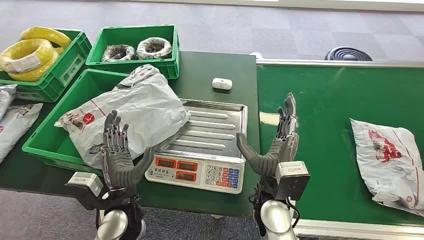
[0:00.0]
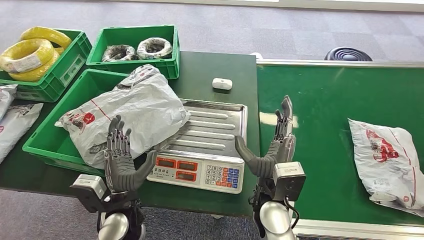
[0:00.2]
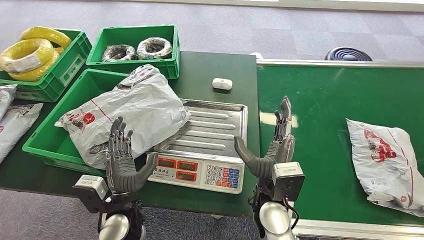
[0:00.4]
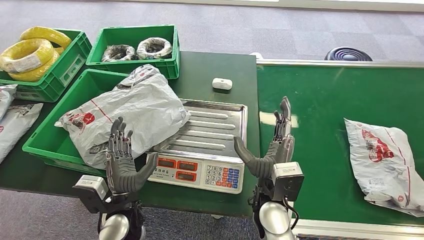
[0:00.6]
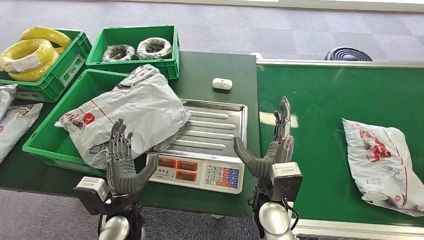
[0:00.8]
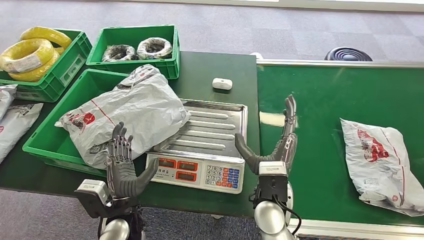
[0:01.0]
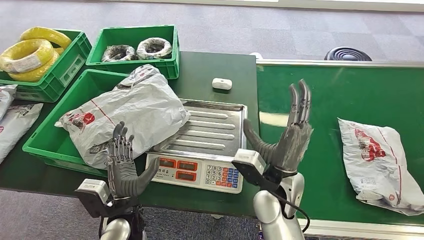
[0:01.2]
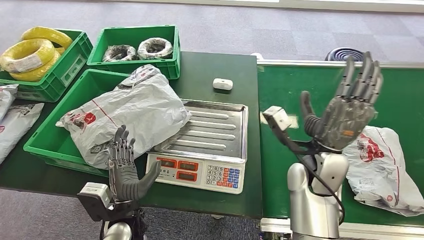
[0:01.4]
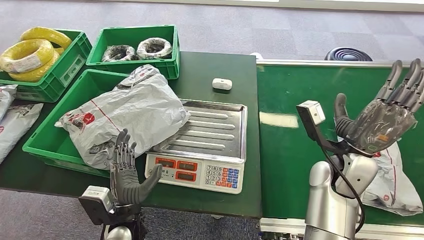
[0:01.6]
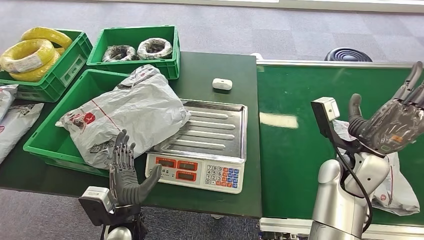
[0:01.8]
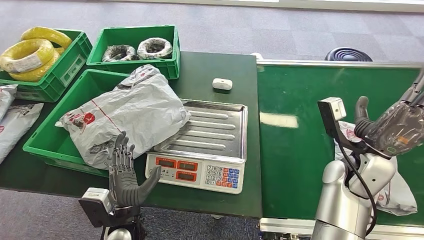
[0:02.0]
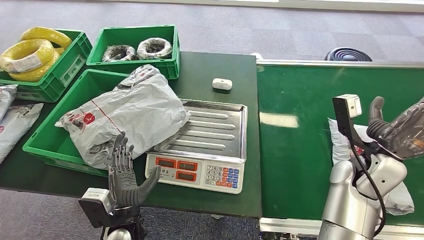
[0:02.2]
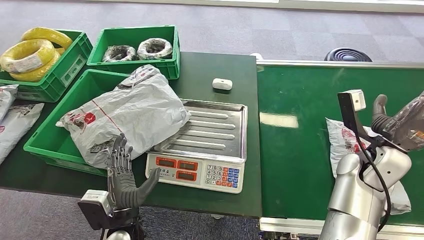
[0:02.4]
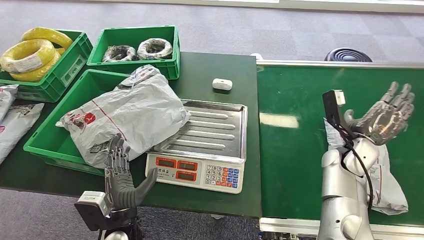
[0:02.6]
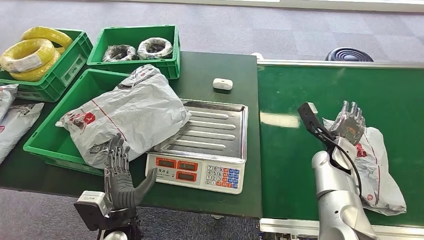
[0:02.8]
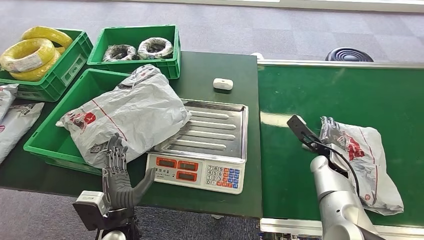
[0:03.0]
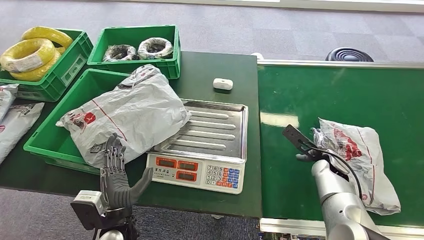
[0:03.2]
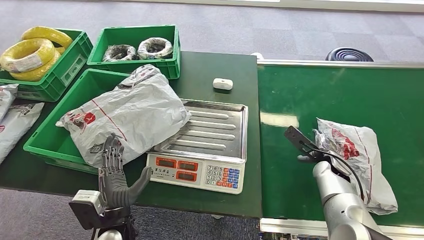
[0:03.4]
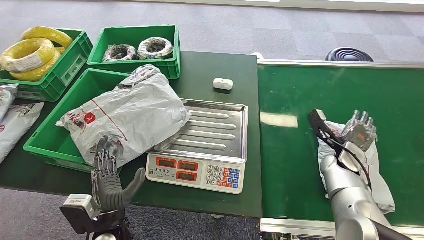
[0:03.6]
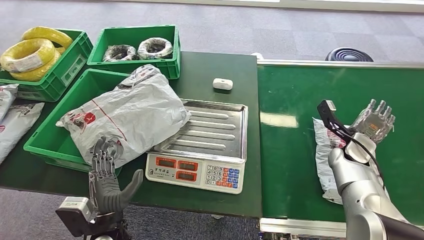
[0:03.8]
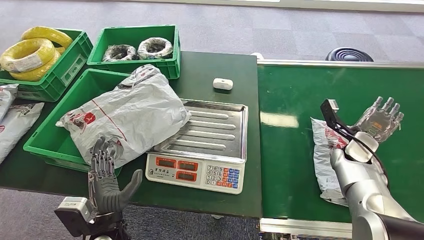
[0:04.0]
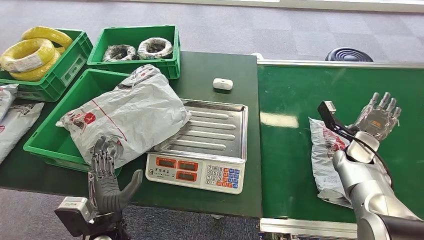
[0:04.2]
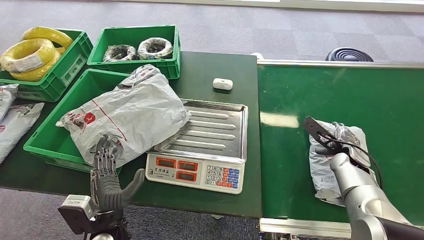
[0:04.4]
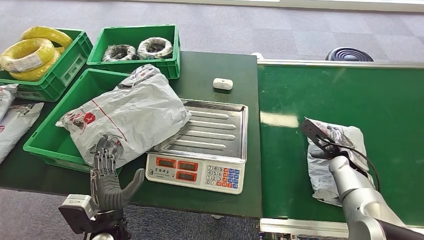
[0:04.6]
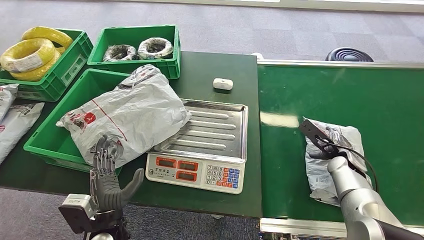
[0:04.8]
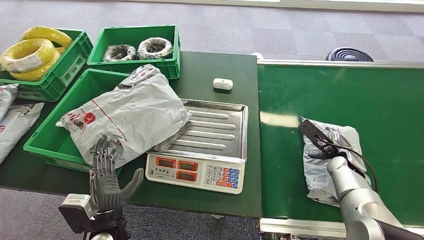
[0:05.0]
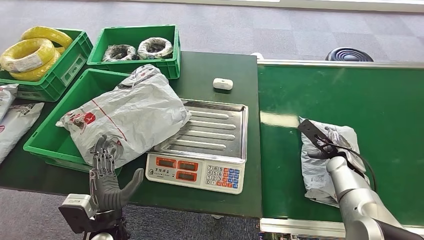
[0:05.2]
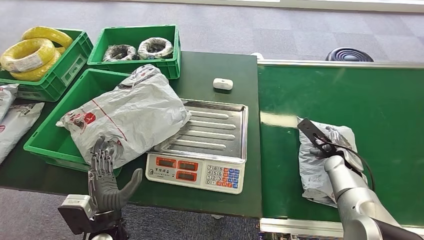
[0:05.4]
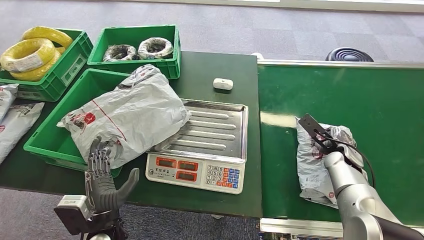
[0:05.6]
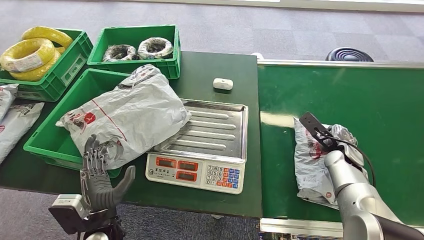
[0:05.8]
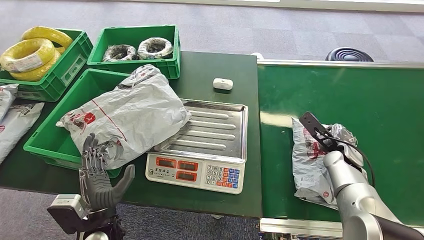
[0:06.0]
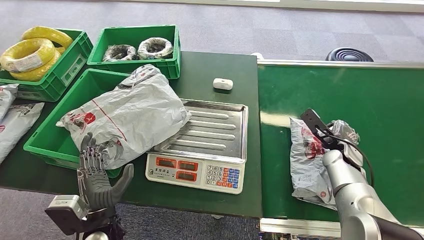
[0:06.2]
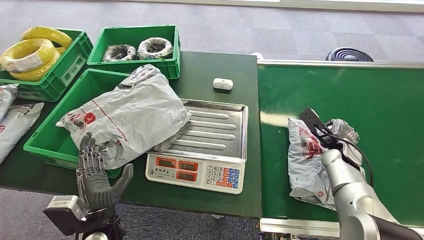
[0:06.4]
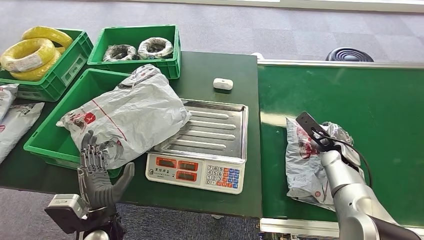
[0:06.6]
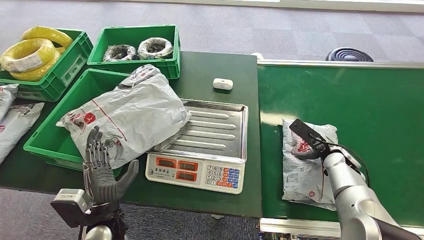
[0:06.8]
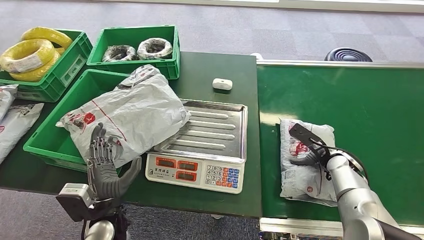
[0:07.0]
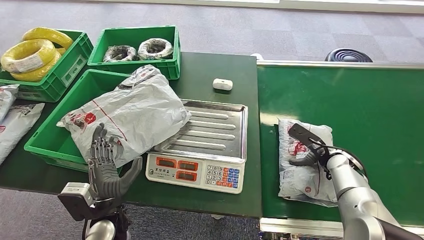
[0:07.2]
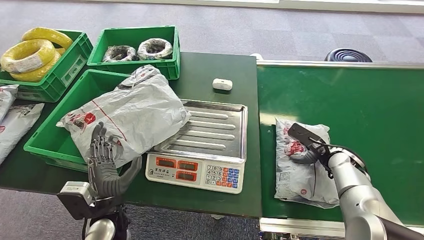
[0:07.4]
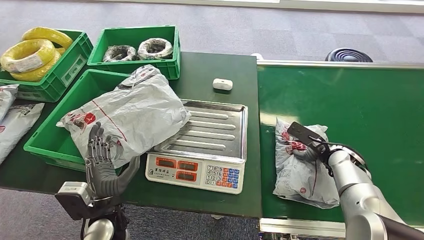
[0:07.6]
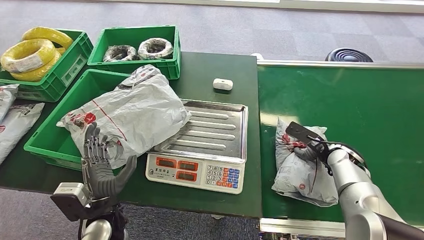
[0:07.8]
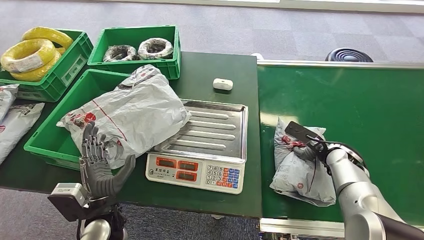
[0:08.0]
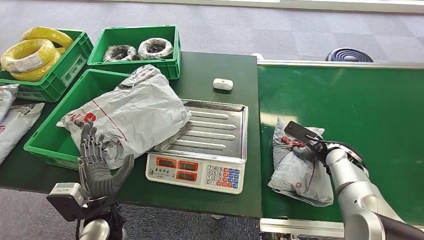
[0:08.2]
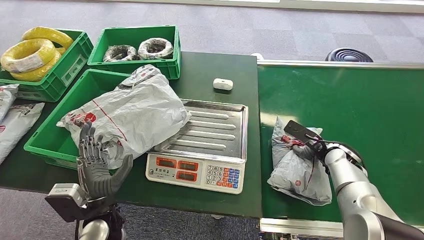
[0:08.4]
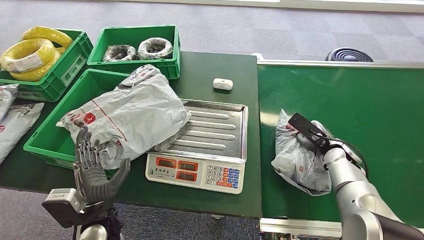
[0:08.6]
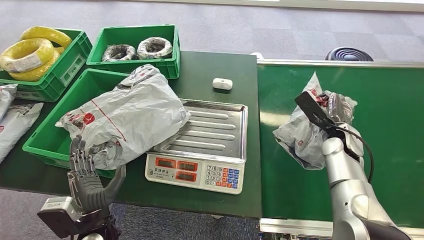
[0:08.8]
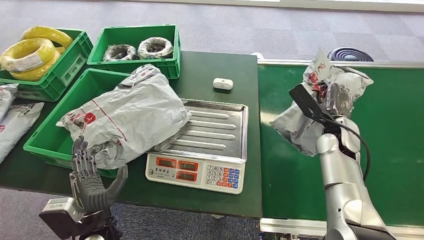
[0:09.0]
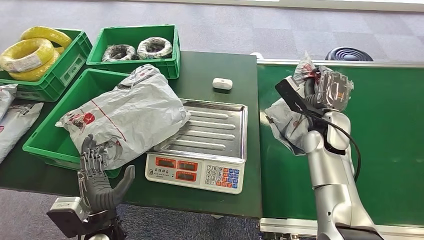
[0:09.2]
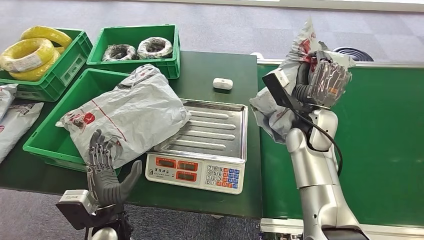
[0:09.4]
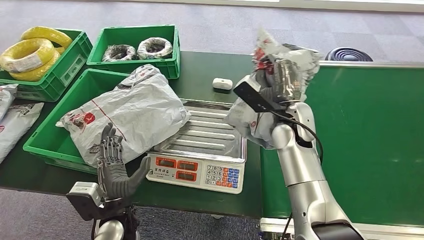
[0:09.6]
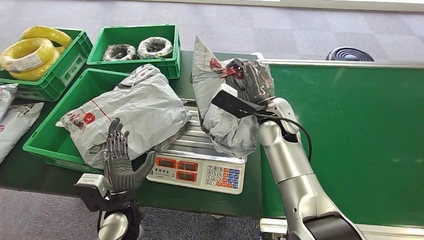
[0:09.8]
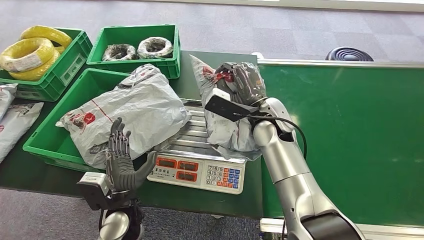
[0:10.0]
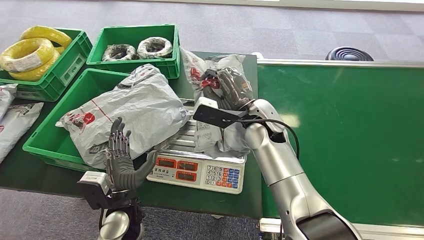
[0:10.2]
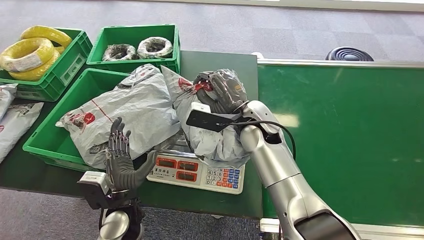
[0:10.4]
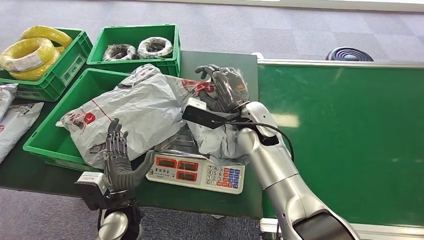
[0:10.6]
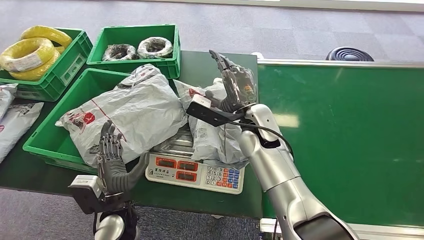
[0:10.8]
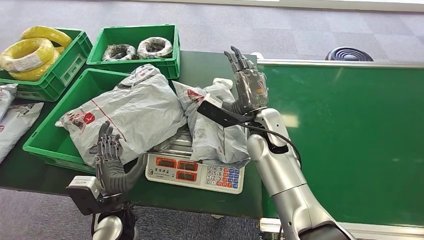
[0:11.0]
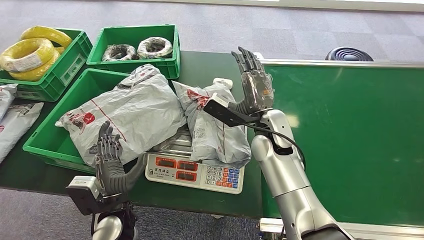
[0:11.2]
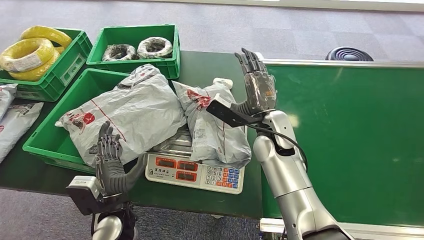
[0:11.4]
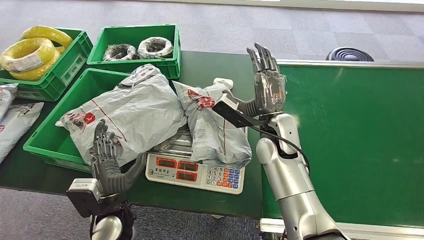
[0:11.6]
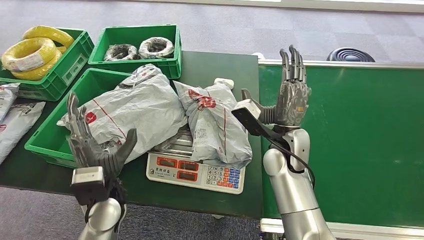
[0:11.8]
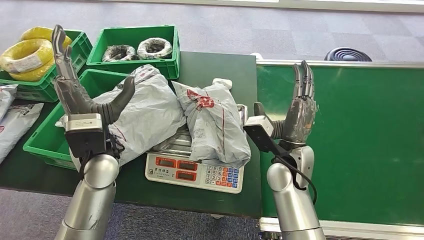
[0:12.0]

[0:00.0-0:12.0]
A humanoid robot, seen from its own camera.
Step, 0:00.0 to 0:09.2: Pick up the package from the conveyor belt.
Step, 0:09.6 to 0:11.6: Place the package onto the inbound machine.
0:01.6 to 0:03.0: The right hand shifts approximately 15 cm downward, to the right and forward.
0:03.0 to 0:04.4: The right hand goes roughly 5 cm to the right.
0:04.4 to 0:06.0: The hands move only a little.

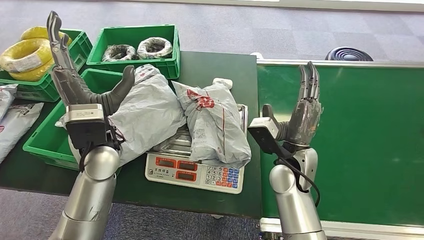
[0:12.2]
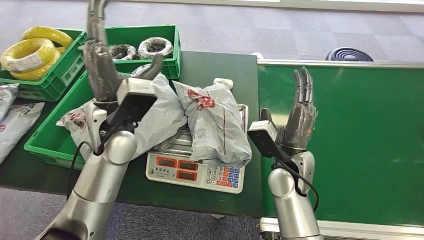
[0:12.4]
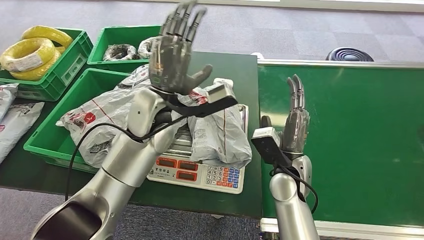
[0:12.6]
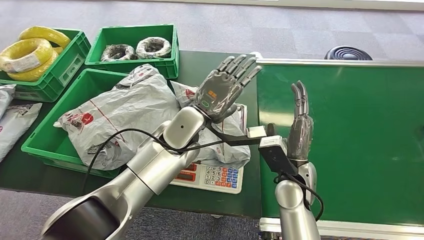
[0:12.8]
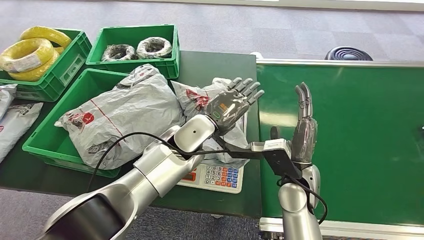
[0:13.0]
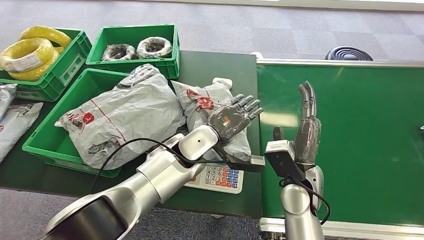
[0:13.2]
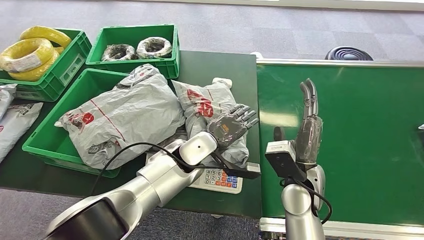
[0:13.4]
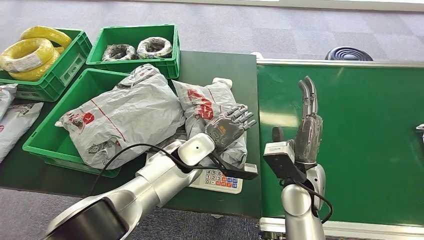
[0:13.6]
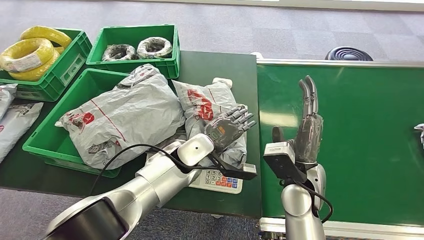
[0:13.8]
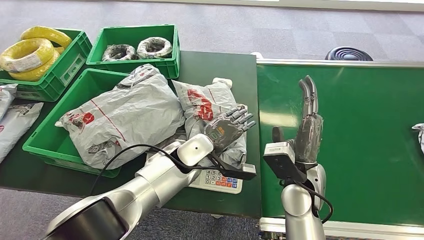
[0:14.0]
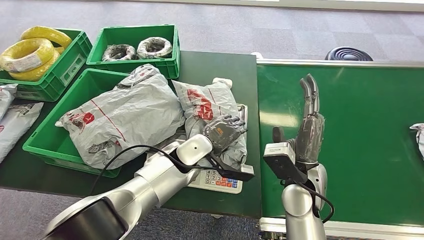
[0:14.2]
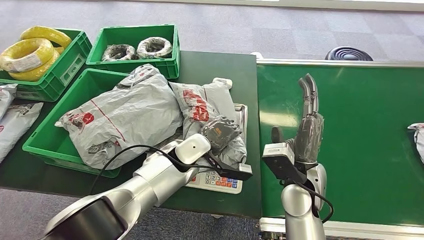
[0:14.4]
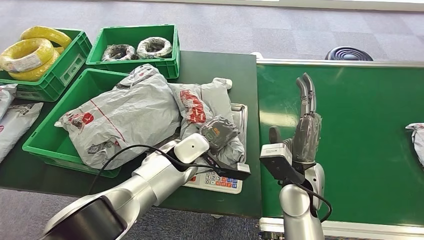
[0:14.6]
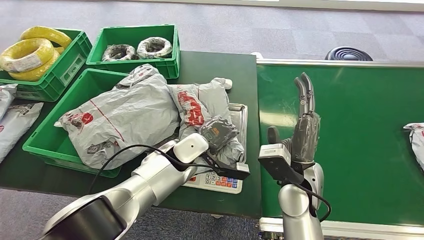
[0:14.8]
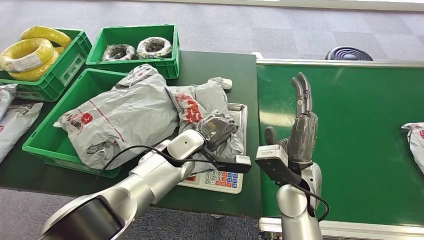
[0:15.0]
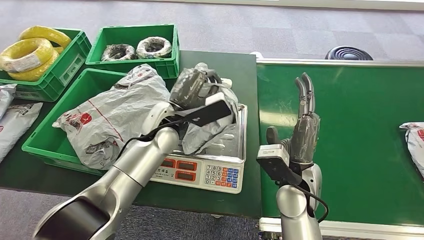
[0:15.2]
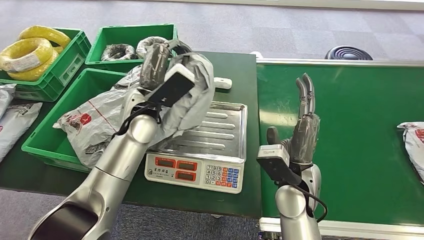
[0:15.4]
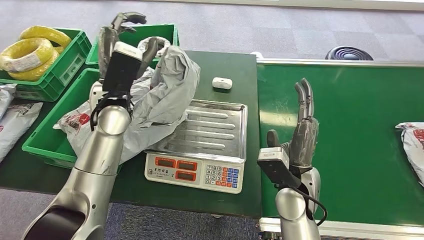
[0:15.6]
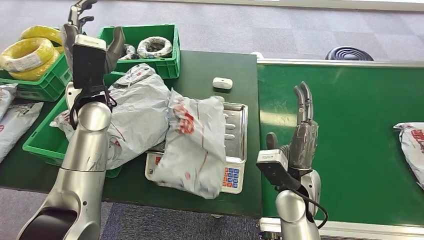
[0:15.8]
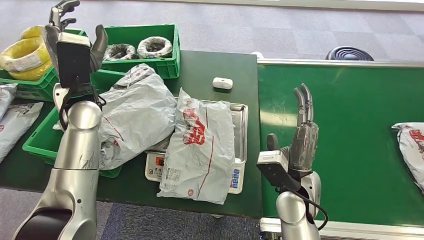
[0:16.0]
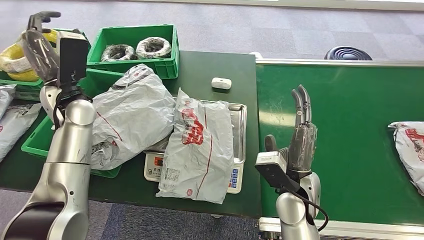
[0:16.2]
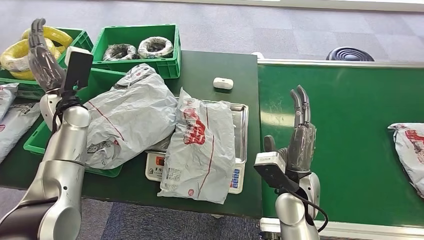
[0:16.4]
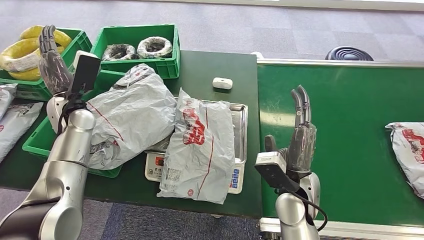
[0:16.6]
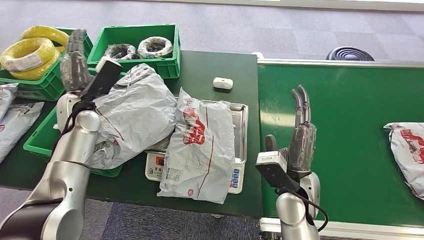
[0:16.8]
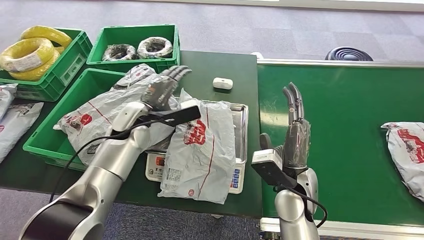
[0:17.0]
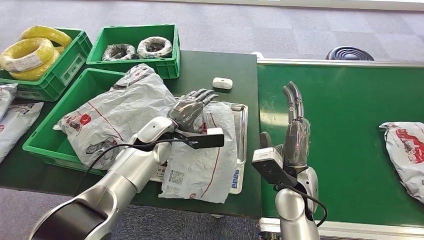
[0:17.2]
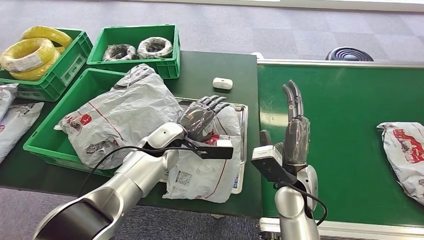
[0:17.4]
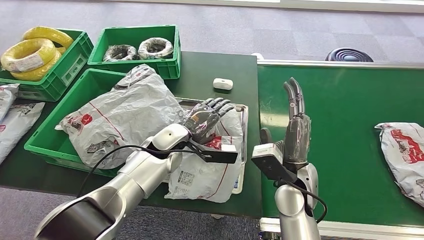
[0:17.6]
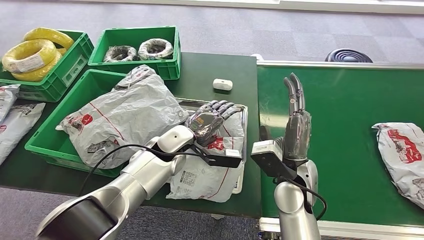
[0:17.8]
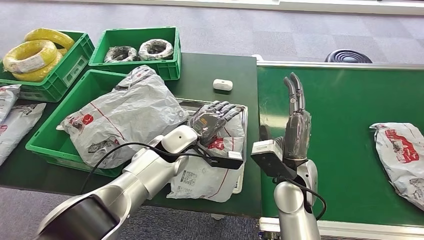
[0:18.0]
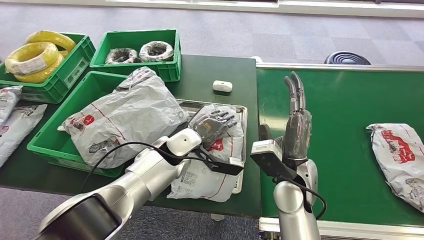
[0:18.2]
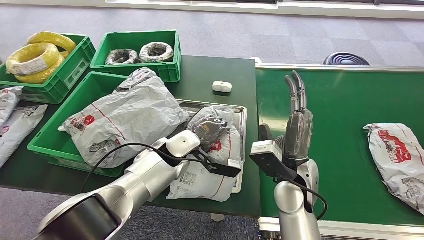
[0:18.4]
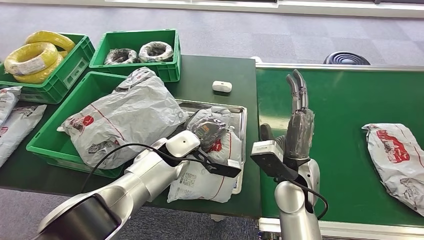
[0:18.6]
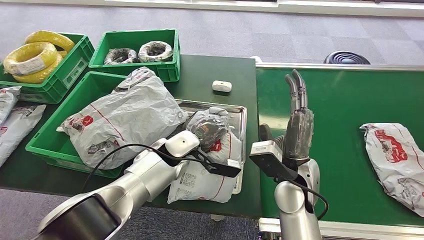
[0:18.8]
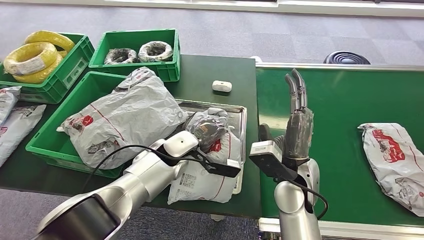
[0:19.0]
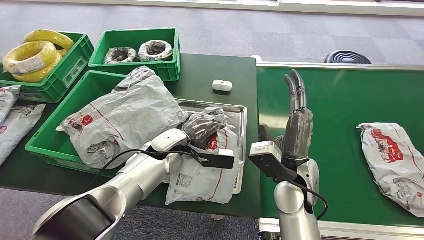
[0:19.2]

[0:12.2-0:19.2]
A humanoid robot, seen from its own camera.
0:13.6 to 0:15.0: There are only small adjustments of the hands.
